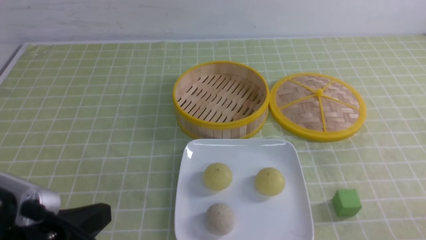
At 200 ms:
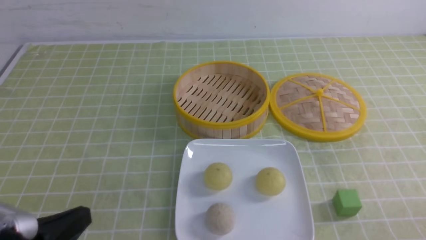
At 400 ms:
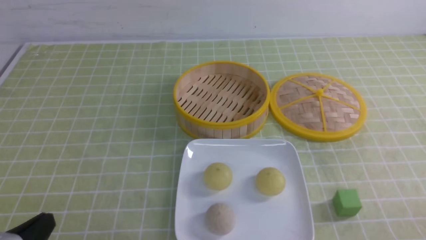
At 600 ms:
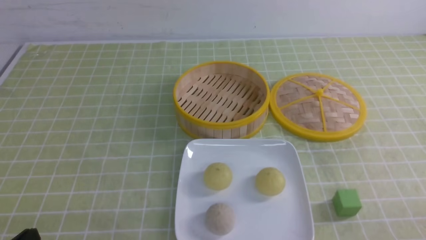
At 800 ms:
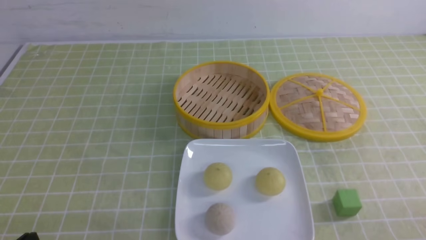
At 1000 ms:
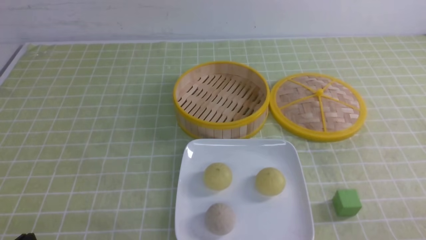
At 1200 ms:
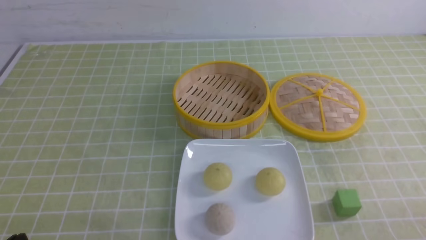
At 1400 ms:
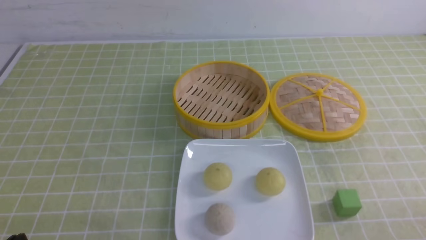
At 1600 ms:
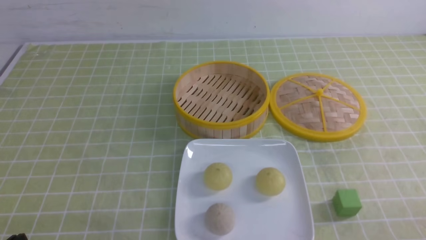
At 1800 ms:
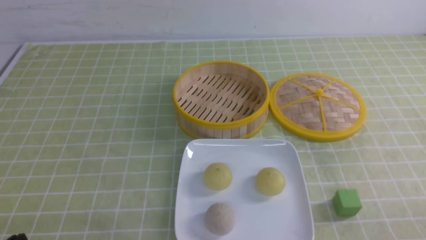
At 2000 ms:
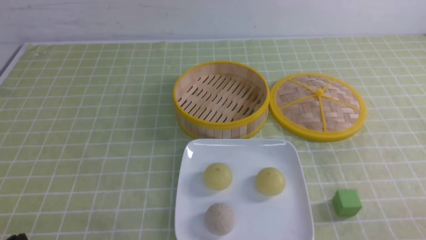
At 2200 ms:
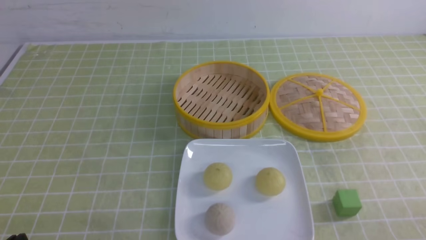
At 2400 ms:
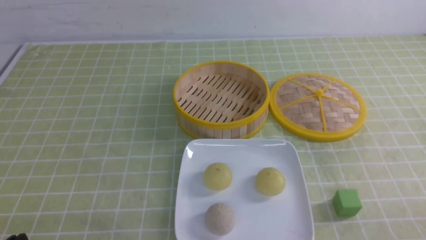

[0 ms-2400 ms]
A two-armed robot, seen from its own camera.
0 ms to 1200 ms: The left gripper moves downward and to the left, some 10 cm.
1200 ms to 2400 ms: Both grippers stay put.
